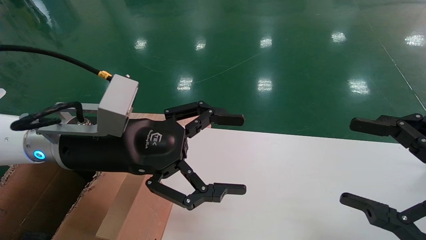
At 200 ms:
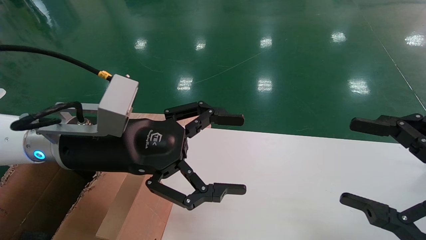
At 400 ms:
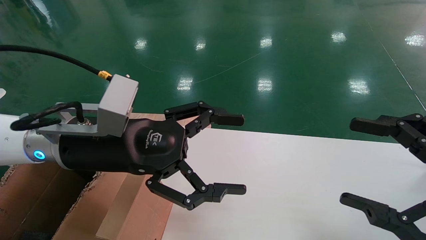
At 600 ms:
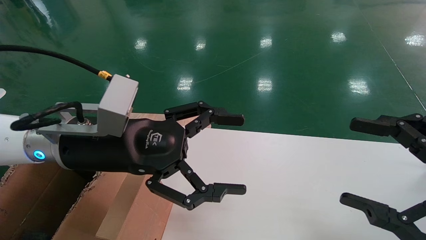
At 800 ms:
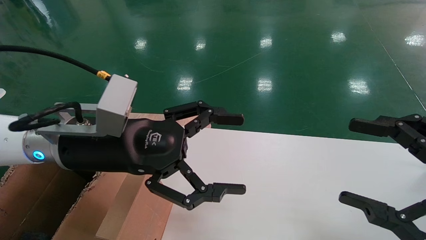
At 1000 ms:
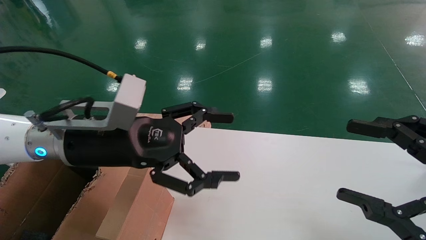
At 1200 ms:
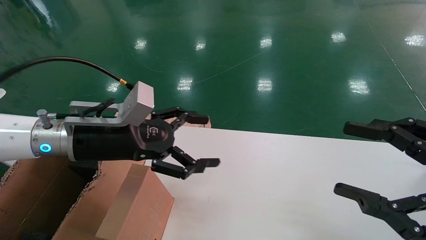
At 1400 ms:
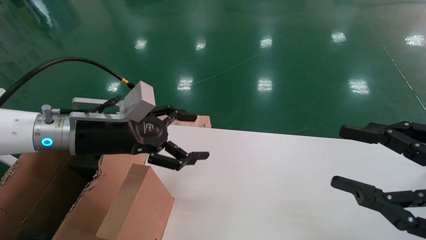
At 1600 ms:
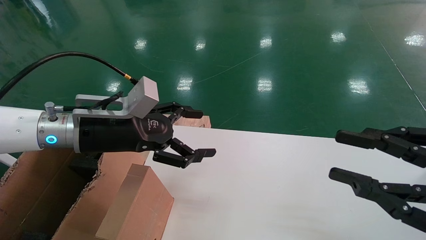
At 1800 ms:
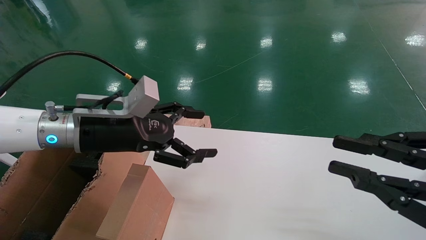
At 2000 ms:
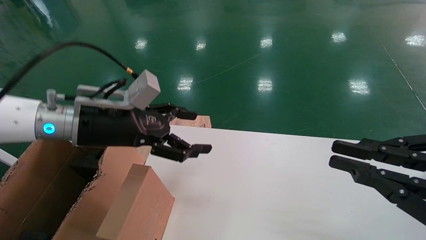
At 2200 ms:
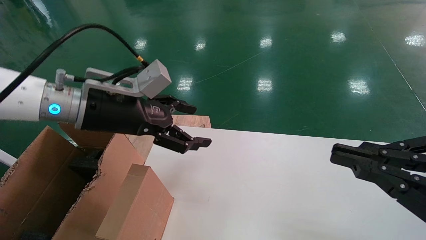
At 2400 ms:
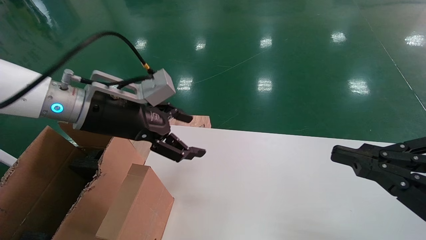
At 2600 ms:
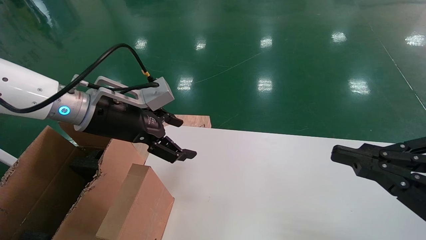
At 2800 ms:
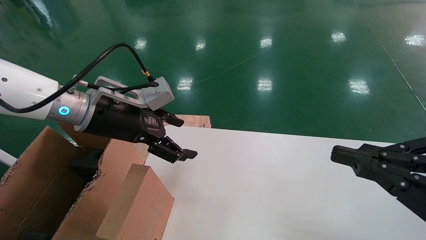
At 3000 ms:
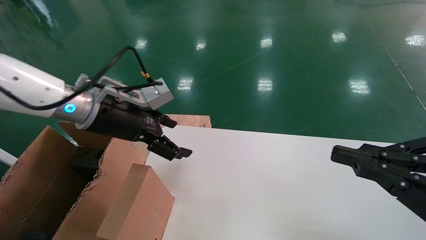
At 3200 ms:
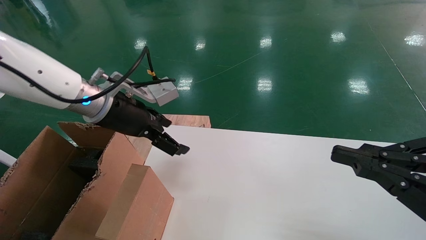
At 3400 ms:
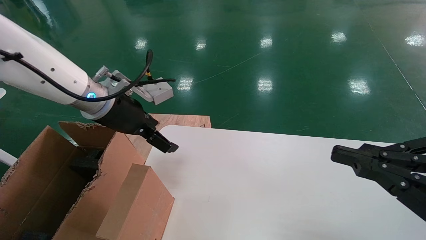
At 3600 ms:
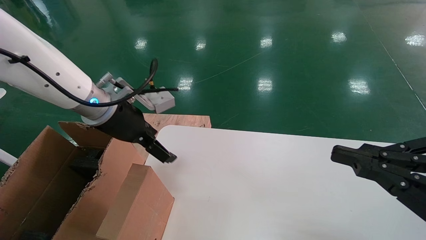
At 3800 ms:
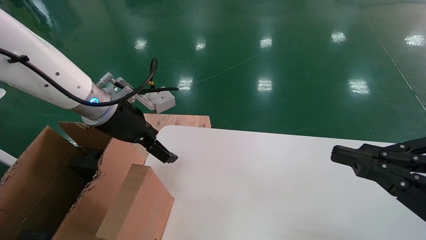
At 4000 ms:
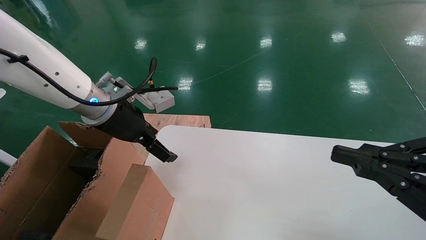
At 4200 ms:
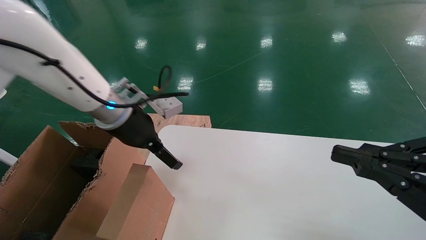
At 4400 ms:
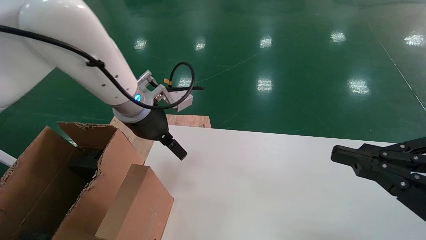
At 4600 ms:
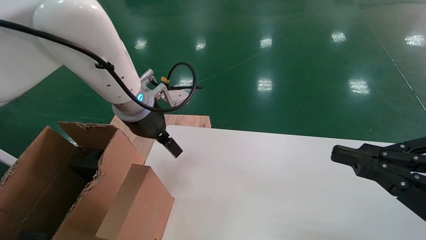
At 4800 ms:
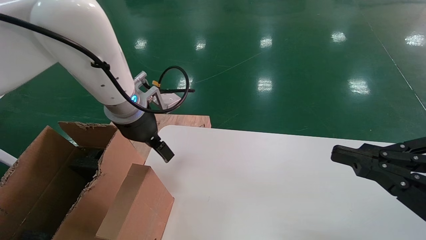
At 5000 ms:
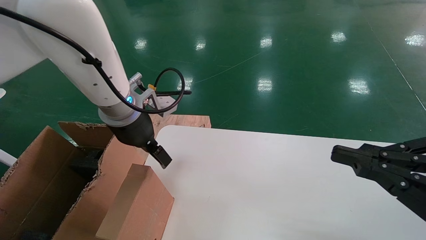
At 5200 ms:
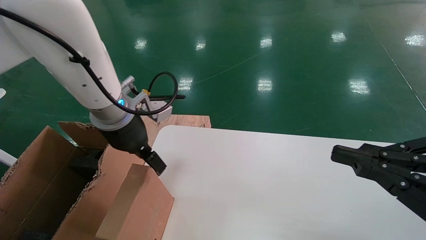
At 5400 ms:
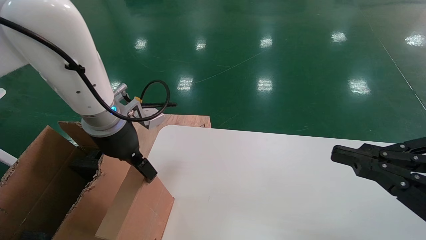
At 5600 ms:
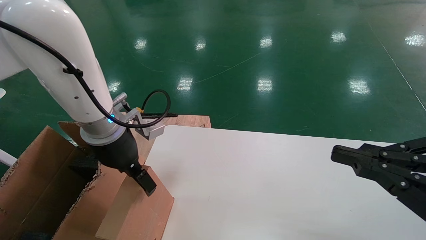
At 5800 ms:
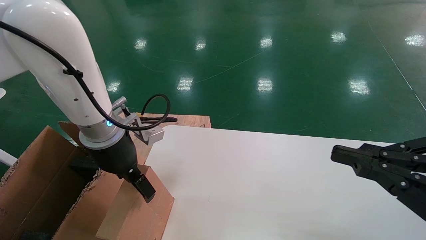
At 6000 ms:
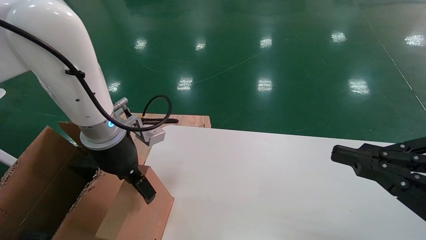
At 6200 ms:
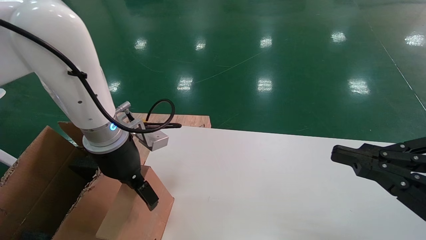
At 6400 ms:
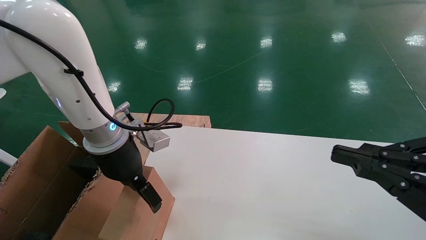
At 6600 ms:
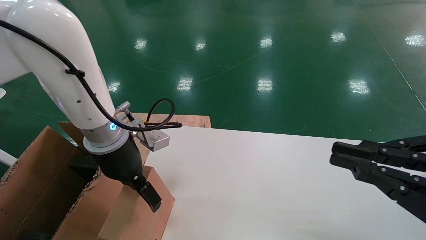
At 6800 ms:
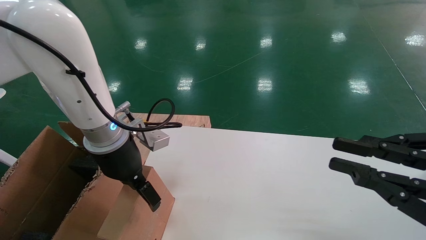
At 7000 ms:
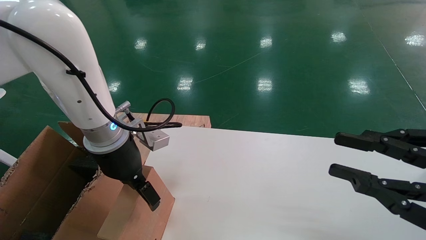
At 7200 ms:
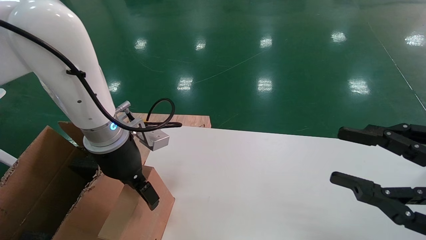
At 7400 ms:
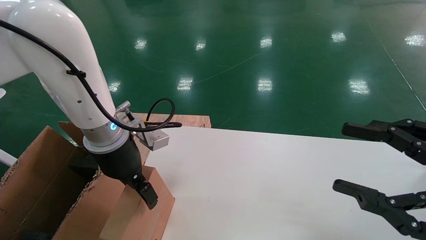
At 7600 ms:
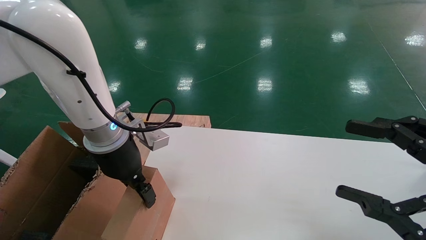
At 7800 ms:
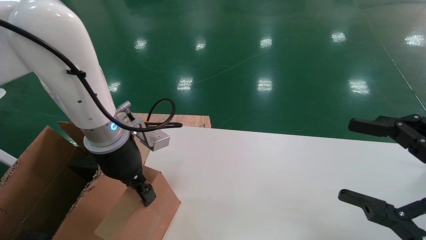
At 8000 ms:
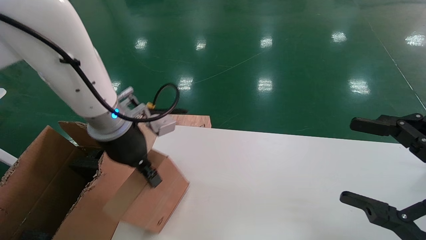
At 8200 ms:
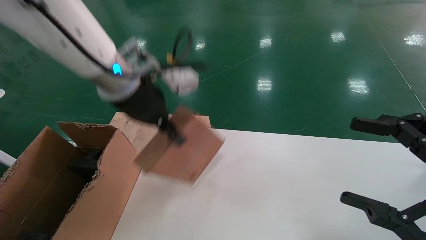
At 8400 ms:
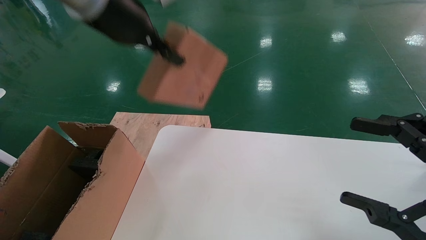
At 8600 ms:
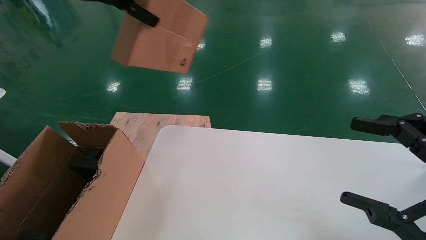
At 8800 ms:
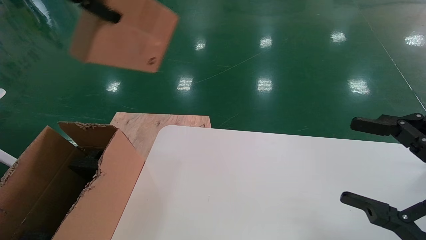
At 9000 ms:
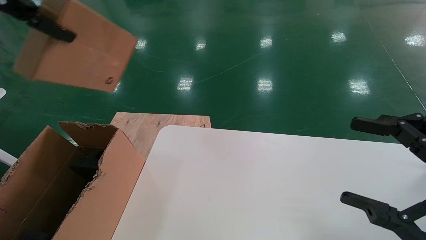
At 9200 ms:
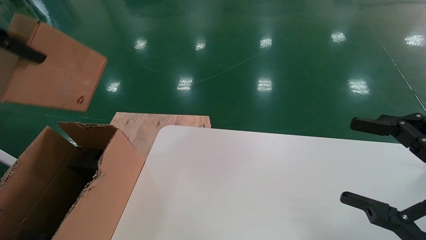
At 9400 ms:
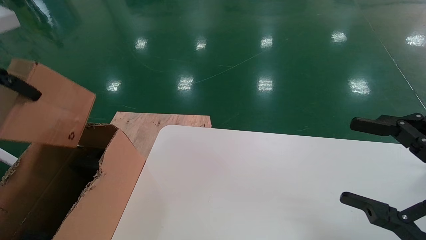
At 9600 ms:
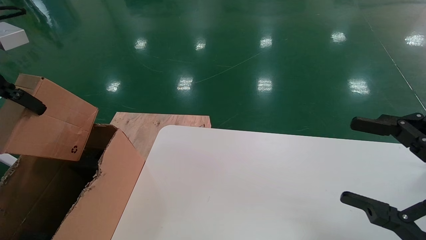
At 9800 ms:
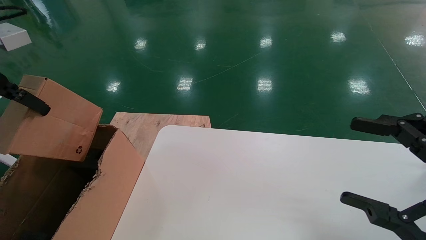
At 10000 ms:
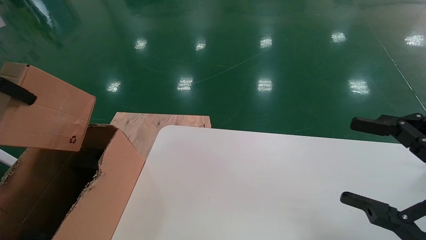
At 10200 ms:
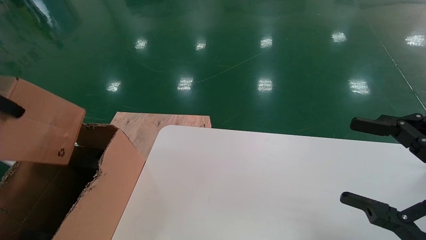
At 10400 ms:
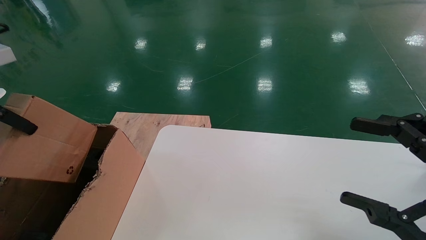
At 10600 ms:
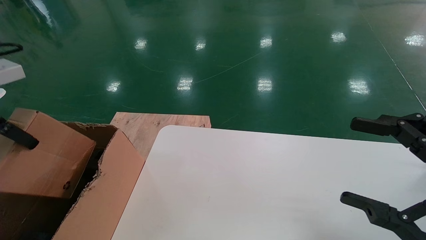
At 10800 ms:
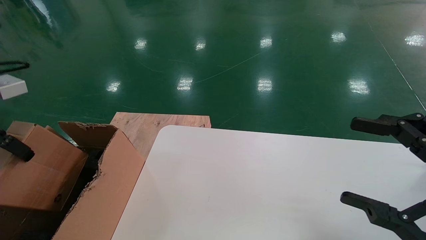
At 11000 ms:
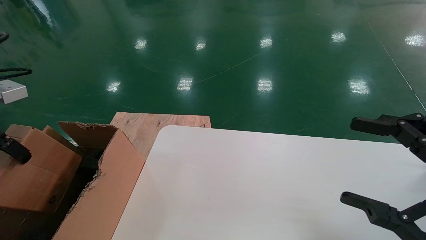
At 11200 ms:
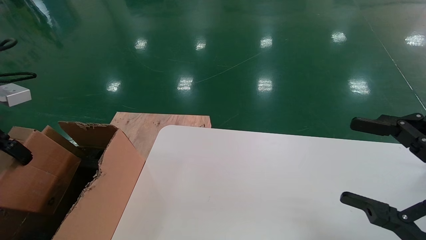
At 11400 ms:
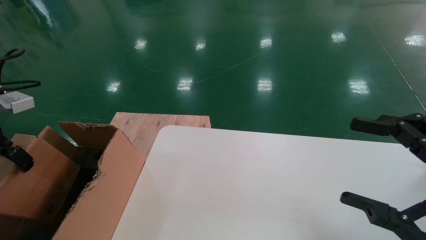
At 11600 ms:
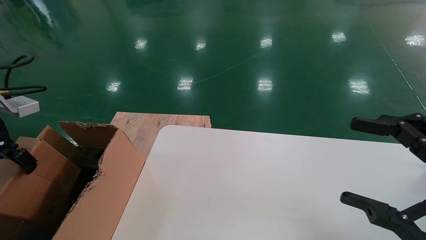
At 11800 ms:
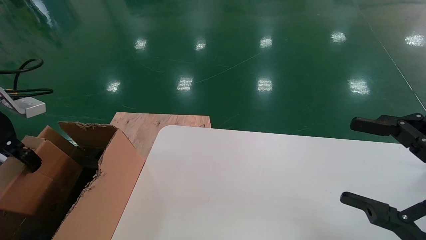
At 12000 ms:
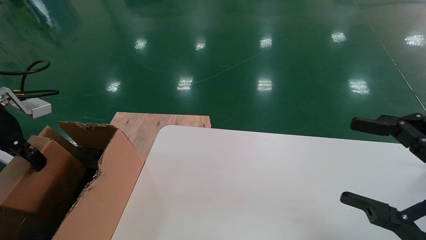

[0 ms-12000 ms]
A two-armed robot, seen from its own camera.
Task of the whole recording: place the small box on the table into the large box on the left.
Step, 1200 ms to 7800 ms: Pick up the mouse and the power cord paper box.
0 ms to 1600 ms: The right gripper closes. The left gripper moves approximately 5 cm.
1600 ms to 3000 ms: The right gripper closes its fingers.
3000 ms to 4400 ms: The left gripper shifts some 5 cm to the right.
4400 ms to 6000 ms: The left gripper shifts by approximately 5 cm.
6000 ms to 7600 ms: The left gripper closes up, while the right gripper opens.
7600 ms to 9000 ms: The left gripper heads upward and to the left, covering about 30 cm, and closes its fingers.
9000 ms to 10400 ms: The left gripper travels downward and to the left by approximately 15 cm.
10400 ms to 12000 ms: The left gripper moves downward and forward, some 15 cm.

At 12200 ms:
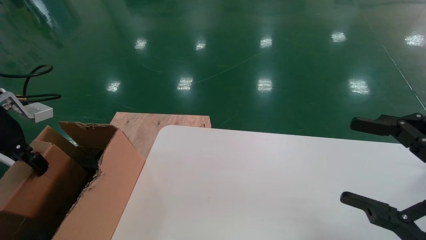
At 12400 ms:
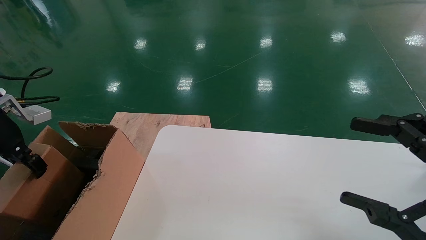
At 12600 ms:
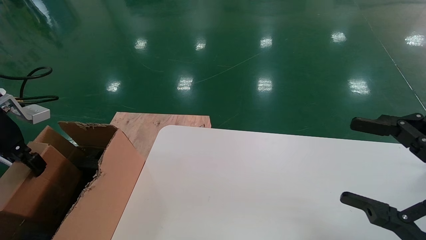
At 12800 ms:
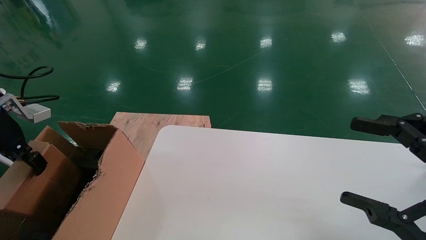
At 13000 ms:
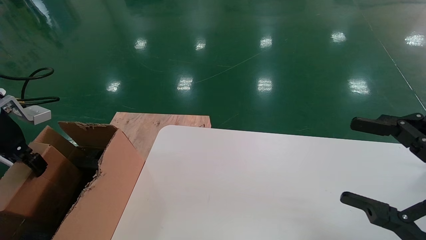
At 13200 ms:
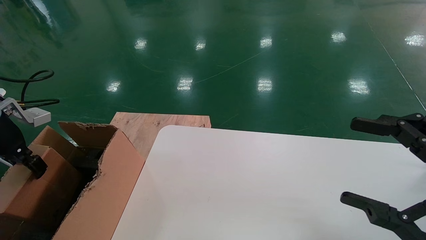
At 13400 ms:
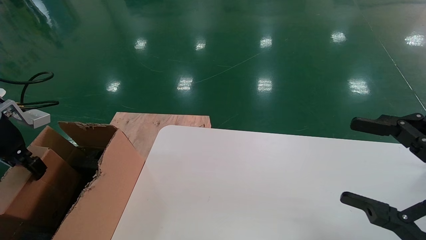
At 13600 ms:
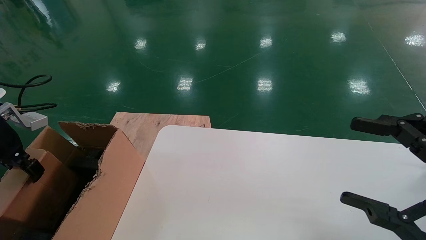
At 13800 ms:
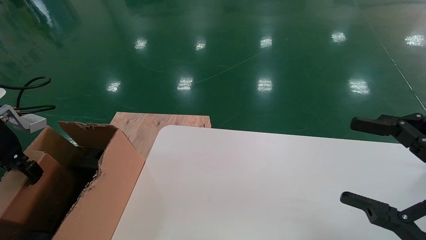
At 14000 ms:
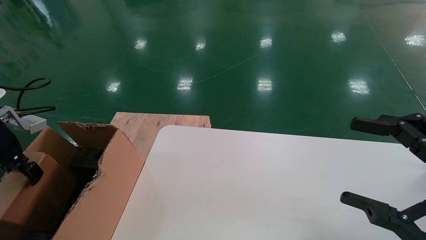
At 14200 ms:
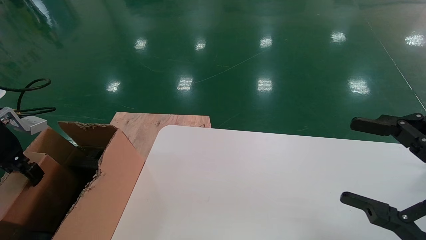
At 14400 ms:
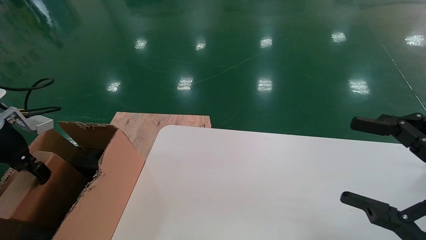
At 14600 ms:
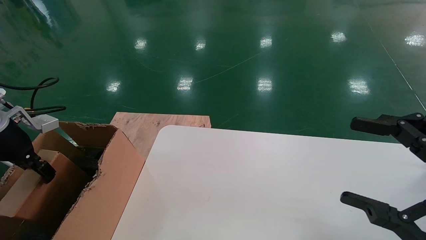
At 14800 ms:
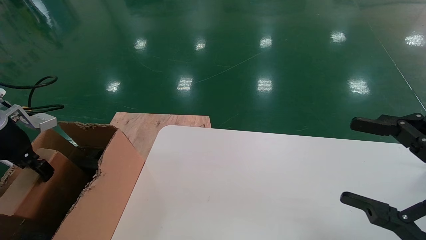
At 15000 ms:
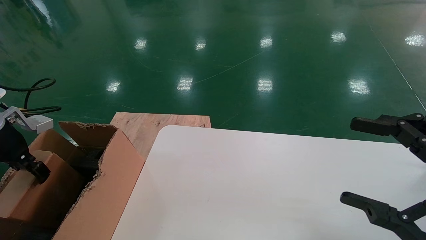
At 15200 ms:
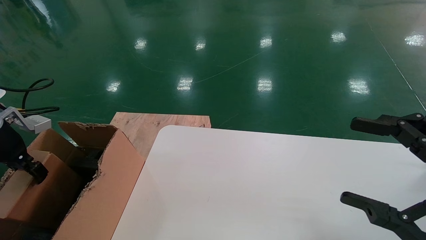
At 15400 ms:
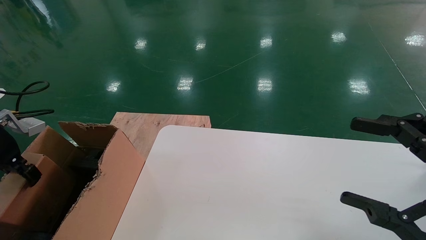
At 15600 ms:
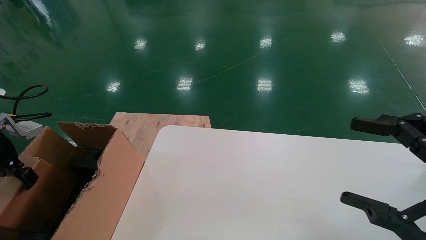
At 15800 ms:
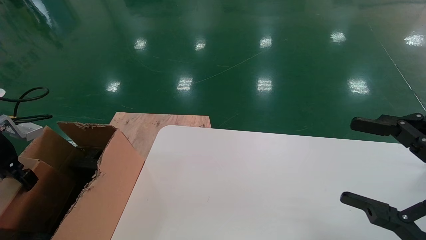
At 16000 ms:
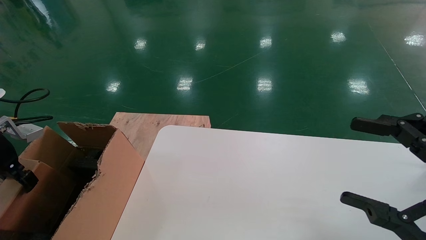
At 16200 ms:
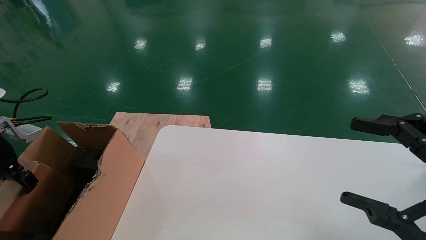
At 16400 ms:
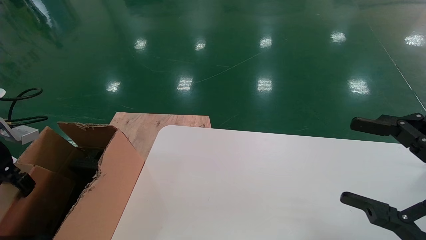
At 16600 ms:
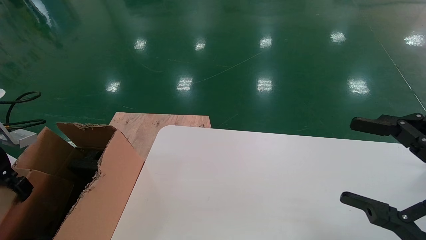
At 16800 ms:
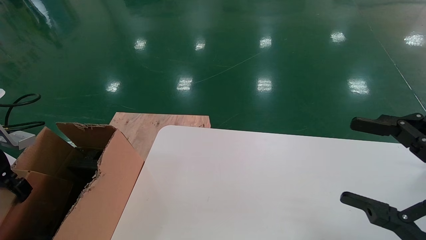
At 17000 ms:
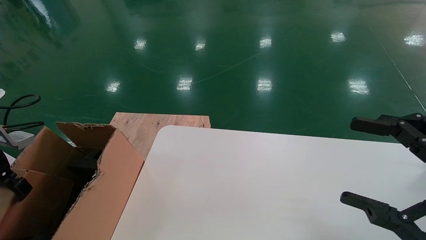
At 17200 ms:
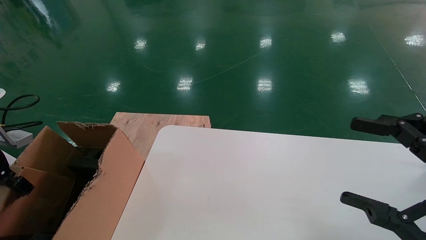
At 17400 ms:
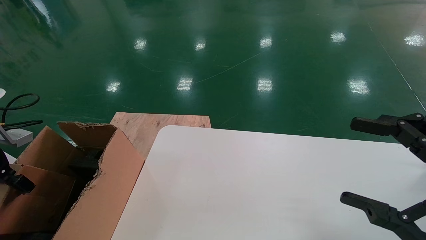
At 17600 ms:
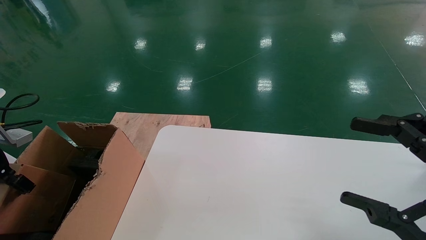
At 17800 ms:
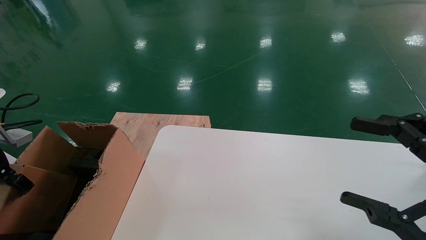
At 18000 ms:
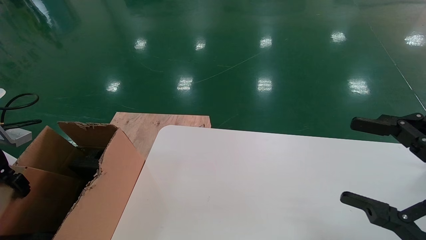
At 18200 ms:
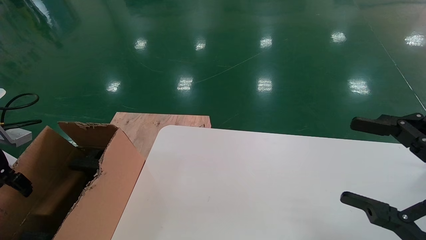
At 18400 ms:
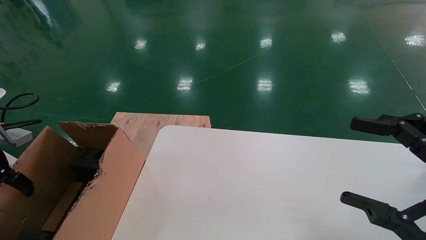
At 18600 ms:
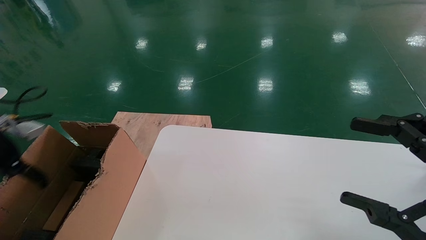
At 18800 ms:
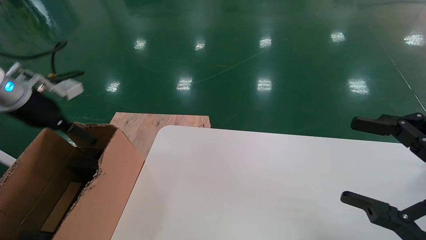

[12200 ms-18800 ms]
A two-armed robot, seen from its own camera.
Task of the whole recording: place the small box on the table into the large box on the left.
Step, 12200 ms to 18400 ms: Place the mouse and the power cord paper box into the container.
12200 ms to 15400 ms: The grippers move only a little.
15400 ms to 17200 ms: There are only small adjustments of the grippers.
17200 ms to 18800 ms: The left gripper shifts approximately 15 cm to the right, upward and forward, and opens.